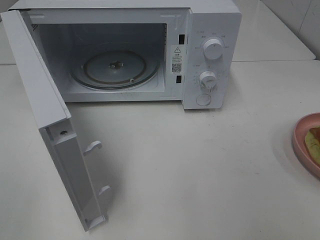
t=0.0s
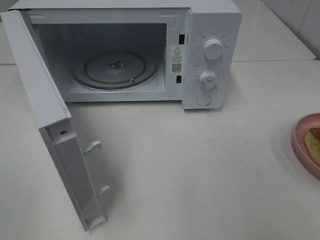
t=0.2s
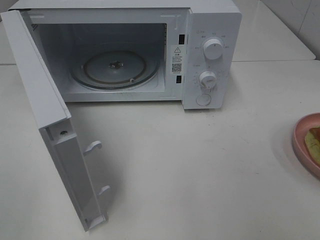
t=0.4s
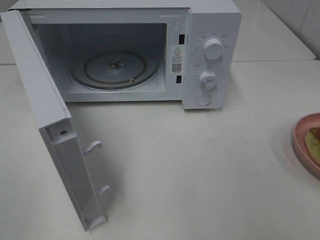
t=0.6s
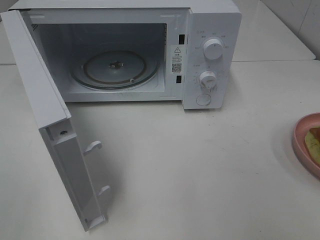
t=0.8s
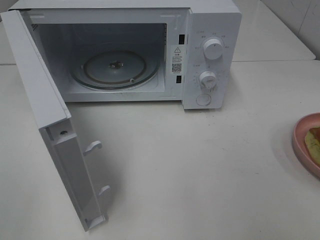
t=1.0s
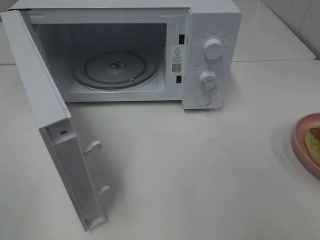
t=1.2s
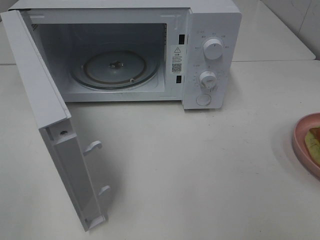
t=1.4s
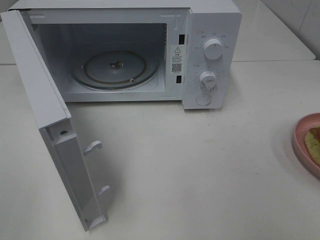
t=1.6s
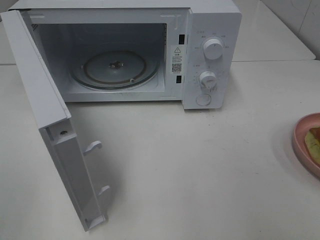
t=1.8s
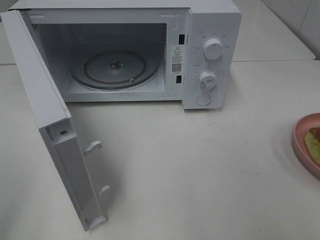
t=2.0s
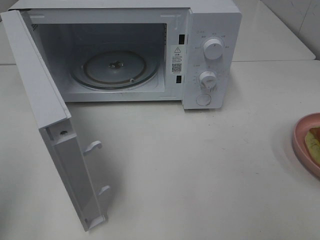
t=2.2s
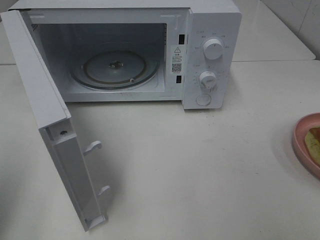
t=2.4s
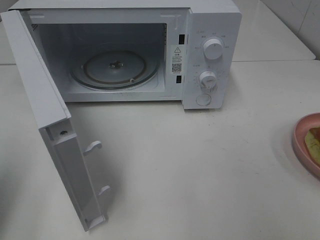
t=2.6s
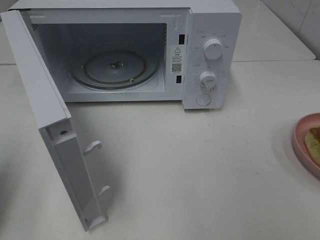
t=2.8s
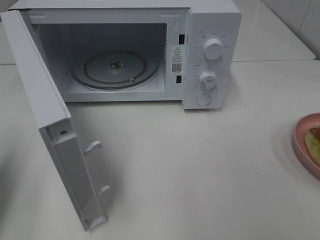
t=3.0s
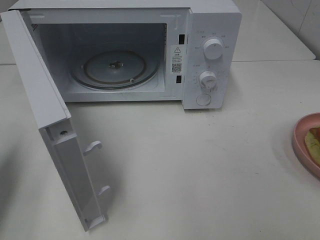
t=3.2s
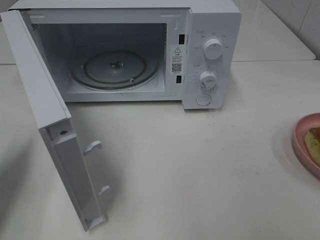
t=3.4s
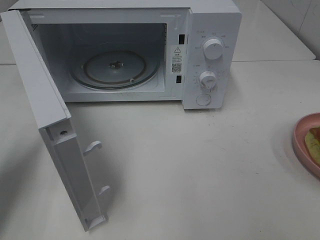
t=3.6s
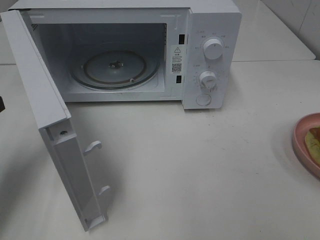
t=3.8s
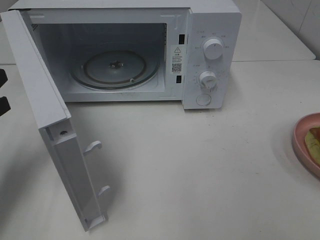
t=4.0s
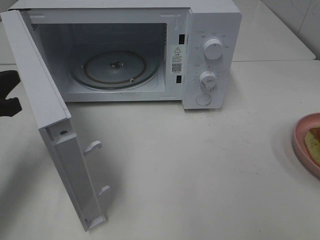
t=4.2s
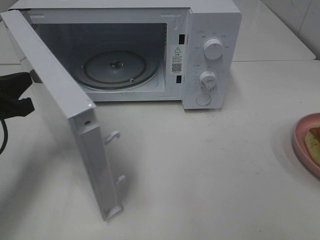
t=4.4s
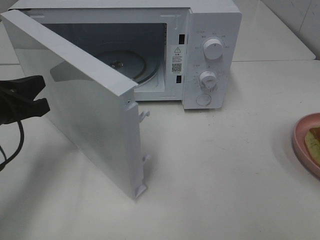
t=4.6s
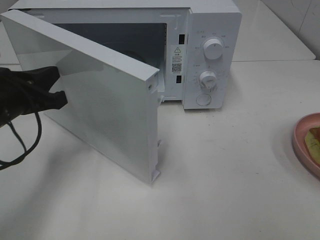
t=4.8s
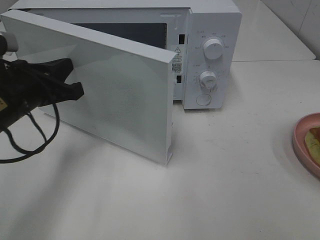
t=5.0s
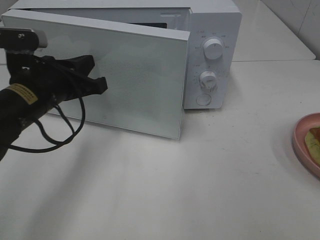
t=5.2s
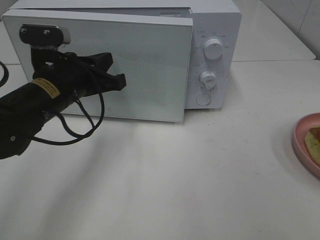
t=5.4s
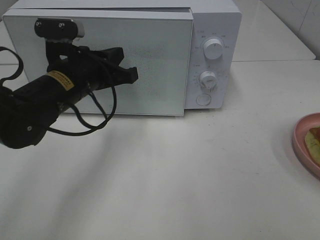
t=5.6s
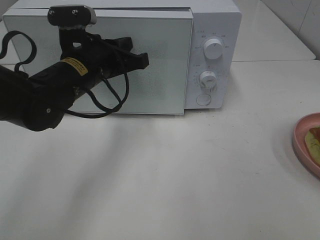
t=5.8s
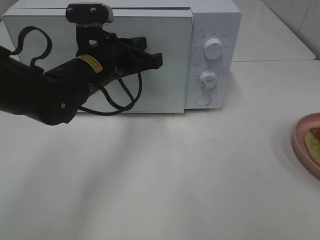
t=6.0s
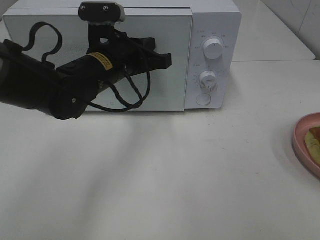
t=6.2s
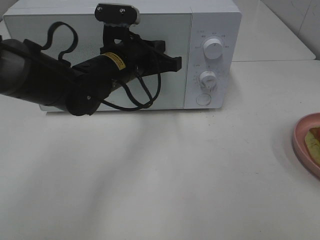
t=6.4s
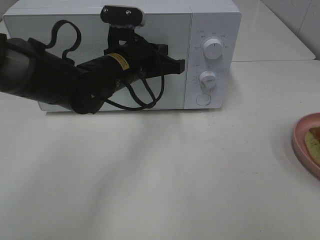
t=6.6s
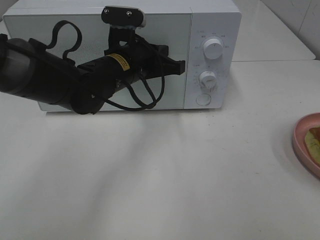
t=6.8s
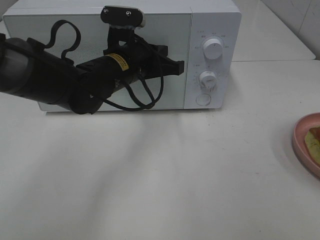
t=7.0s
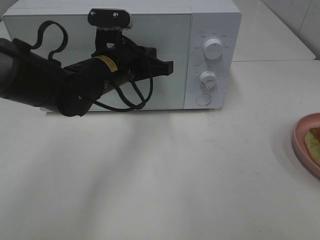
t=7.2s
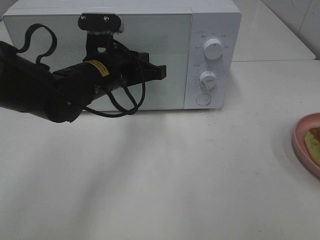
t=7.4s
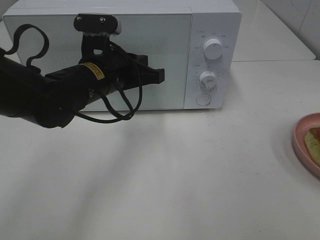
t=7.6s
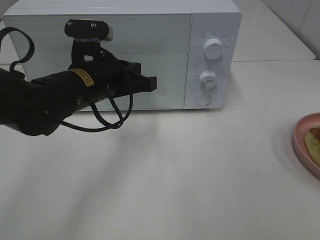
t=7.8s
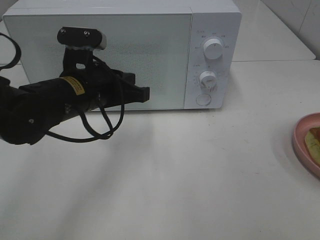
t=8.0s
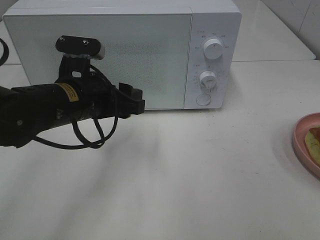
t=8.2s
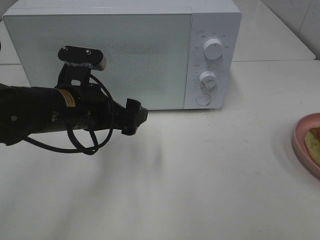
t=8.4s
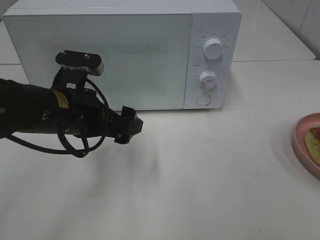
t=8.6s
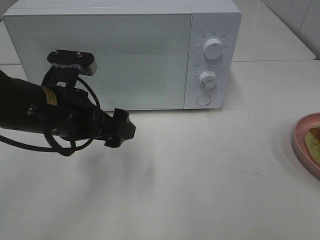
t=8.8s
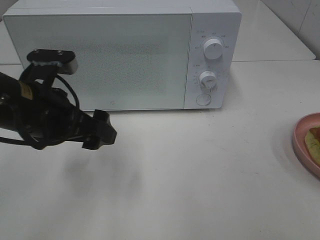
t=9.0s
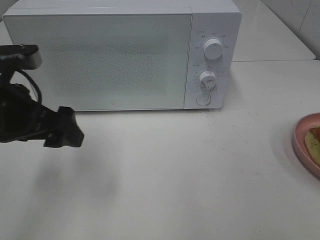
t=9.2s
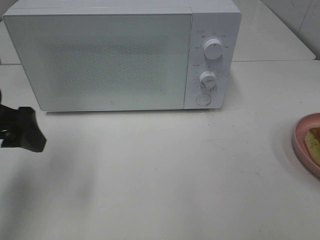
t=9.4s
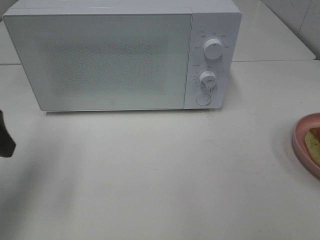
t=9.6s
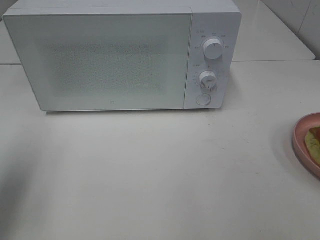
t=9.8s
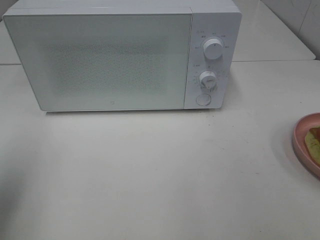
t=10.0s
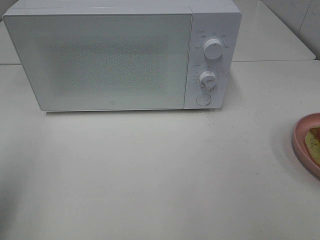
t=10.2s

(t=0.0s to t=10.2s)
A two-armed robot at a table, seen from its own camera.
Task of the whole recording: Heat Sandwich.
Step, t=0.0s - t=7.2s: Left hand: close the microwave door.
t=0.0s - t=1.4s: The two grippers keep their place.
t=1.4s - t=3.0s: The left gripper moves forward, about 20 cm, and closes its fingers.
t=3.0s - t=4.4s: The left gripper heads forward, to the right and downward, covering about 10 cm.
t=4.4s - t=5.8s: The left gripper is displaced to the right and forward by about 20 cm.
t=5.8s - t=7.2s: There are only small adjustments of the grippers.
t=7.2s - t=8.8s: The left gripper shifts about 10 cm backward and to the left, and opens.
t=8.8s - t=10.2s: The left gripper heads to the left, backward and upward, covering some 25 cm.

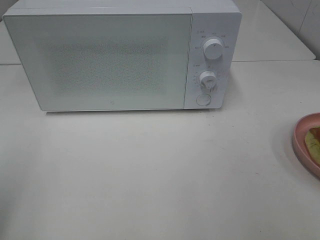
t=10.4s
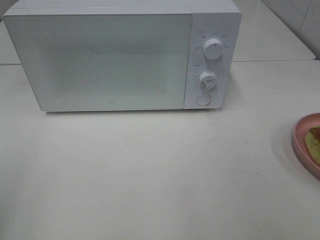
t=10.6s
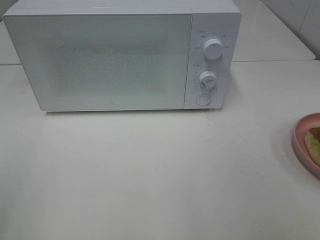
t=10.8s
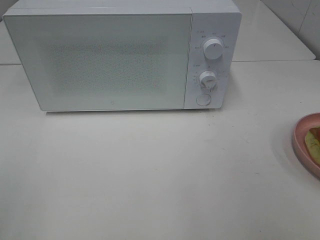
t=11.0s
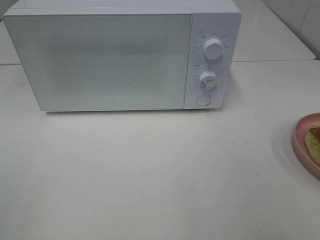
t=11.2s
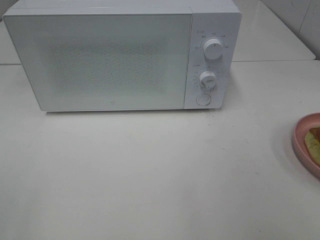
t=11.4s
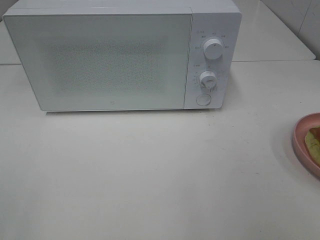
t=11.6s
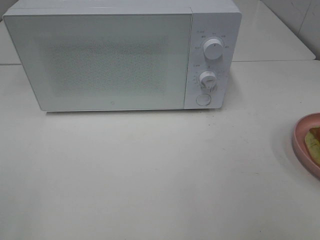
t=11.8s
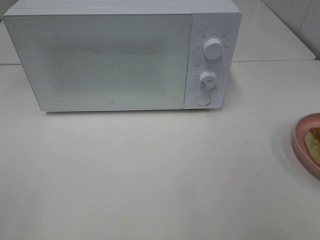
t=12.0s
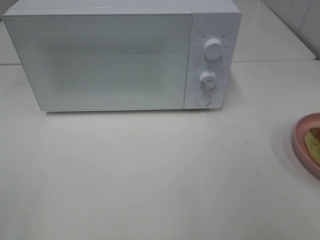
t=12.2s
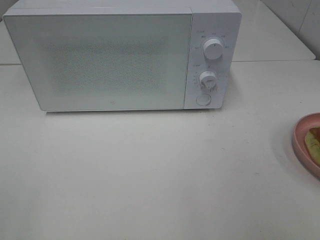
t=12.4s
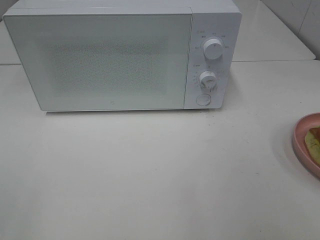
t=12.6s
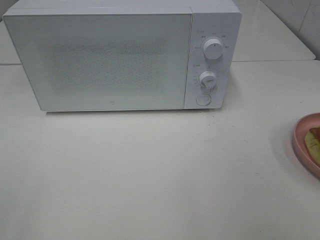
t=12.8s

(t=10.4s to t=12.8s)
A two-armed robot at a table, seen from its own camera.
Task of the whole recording: Heat Sandwich.
t=11.6s - t=12.8s: Both grippers stay about where they are.

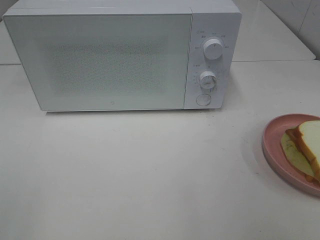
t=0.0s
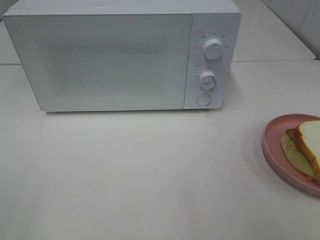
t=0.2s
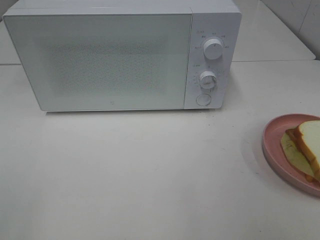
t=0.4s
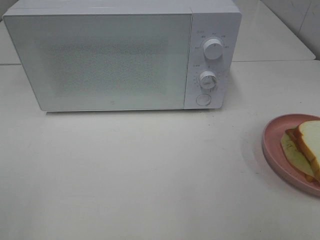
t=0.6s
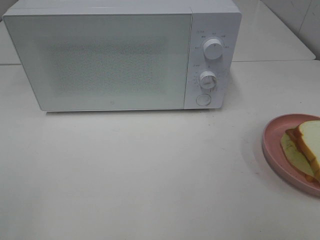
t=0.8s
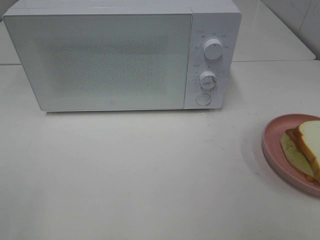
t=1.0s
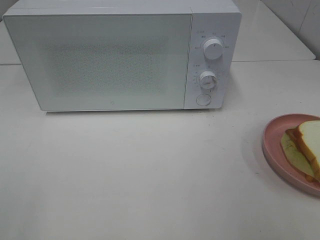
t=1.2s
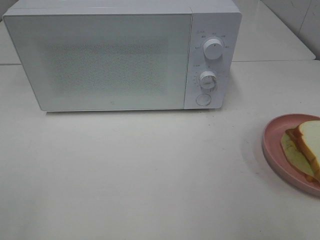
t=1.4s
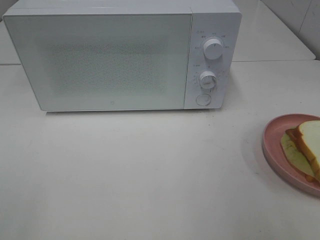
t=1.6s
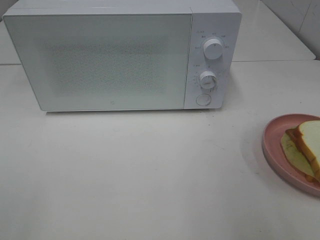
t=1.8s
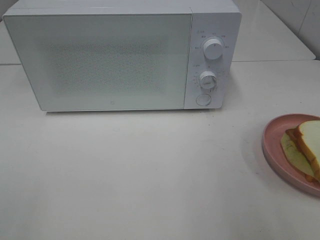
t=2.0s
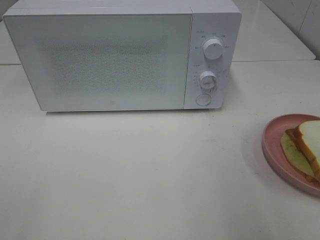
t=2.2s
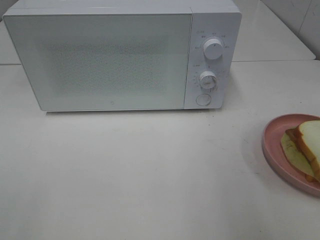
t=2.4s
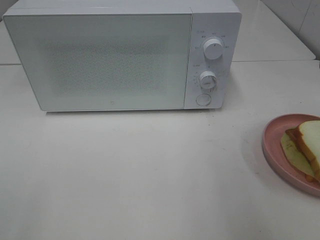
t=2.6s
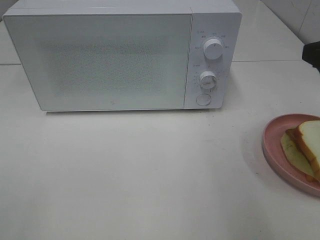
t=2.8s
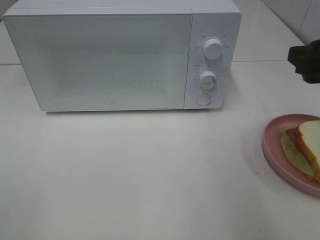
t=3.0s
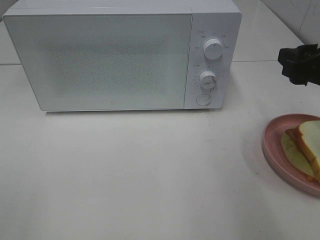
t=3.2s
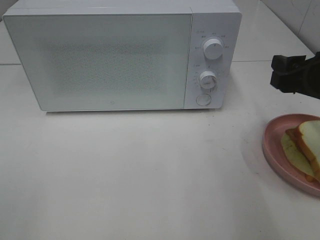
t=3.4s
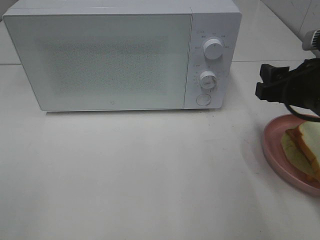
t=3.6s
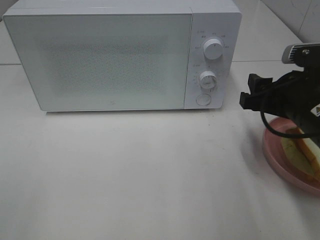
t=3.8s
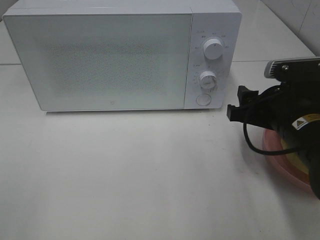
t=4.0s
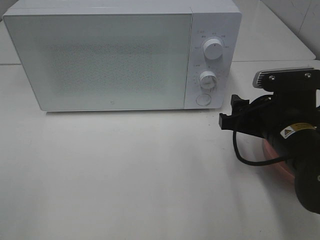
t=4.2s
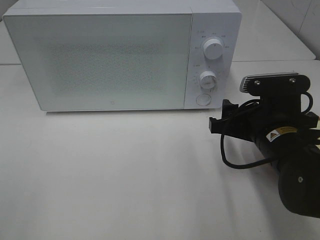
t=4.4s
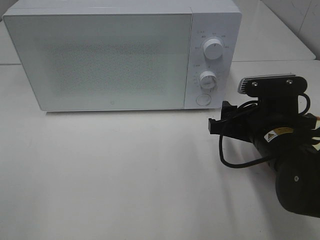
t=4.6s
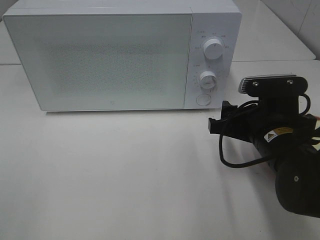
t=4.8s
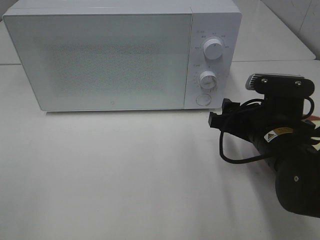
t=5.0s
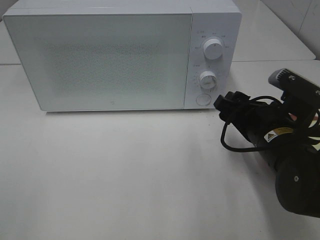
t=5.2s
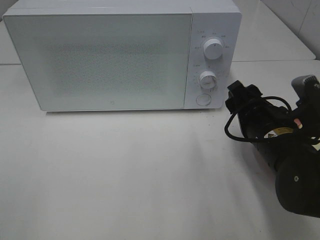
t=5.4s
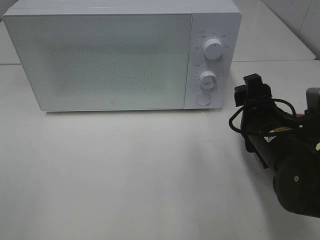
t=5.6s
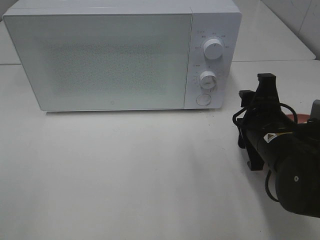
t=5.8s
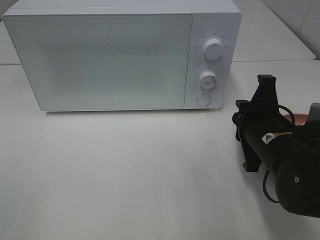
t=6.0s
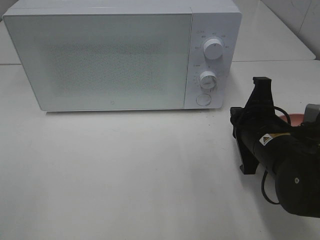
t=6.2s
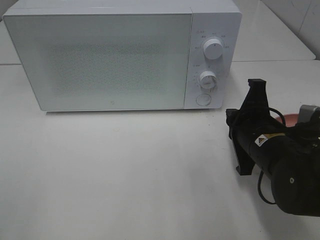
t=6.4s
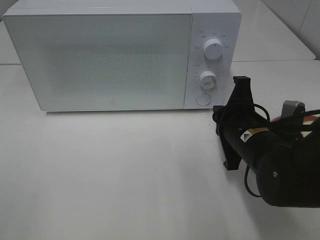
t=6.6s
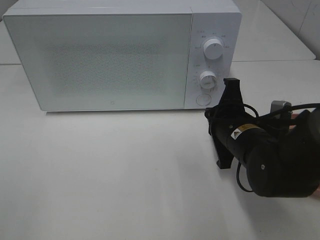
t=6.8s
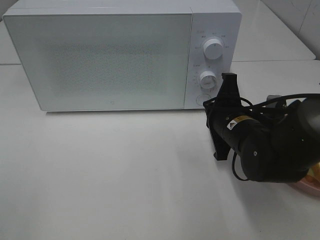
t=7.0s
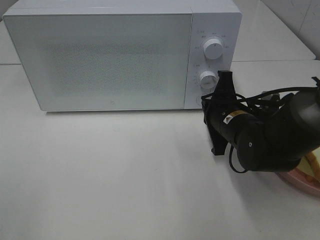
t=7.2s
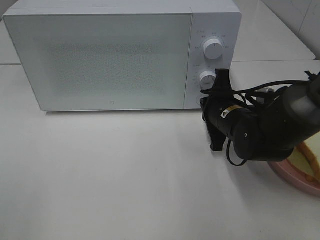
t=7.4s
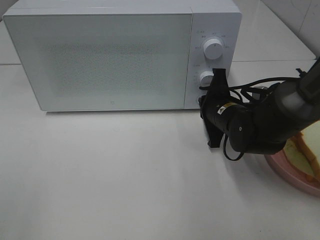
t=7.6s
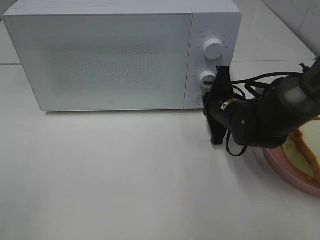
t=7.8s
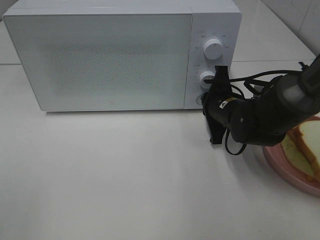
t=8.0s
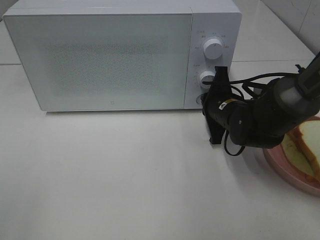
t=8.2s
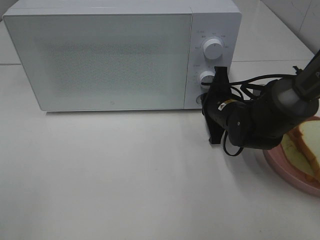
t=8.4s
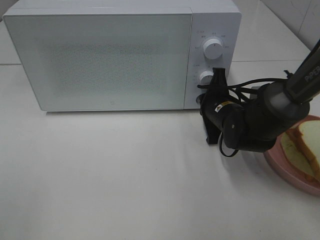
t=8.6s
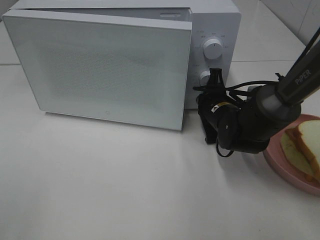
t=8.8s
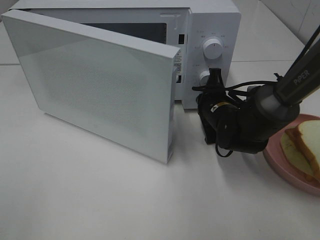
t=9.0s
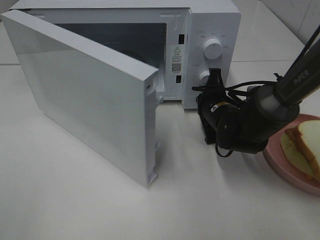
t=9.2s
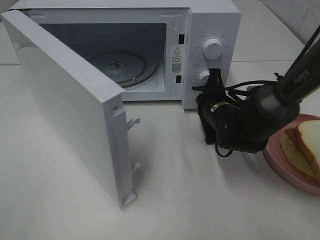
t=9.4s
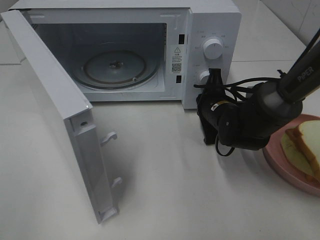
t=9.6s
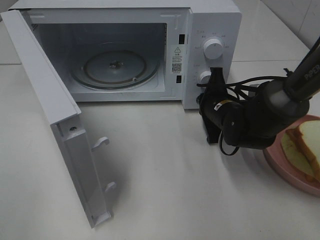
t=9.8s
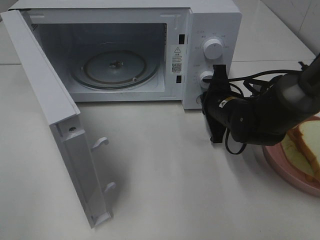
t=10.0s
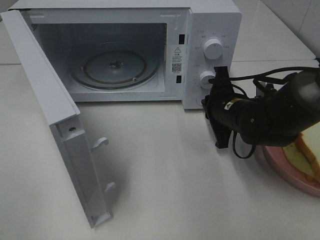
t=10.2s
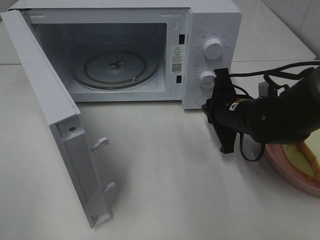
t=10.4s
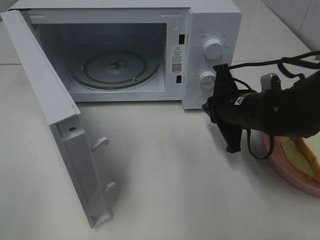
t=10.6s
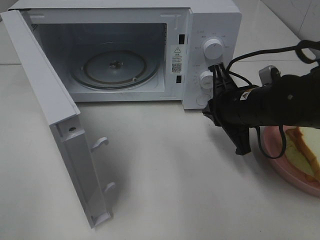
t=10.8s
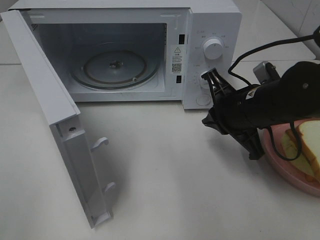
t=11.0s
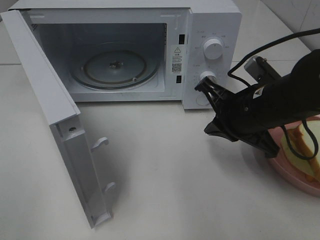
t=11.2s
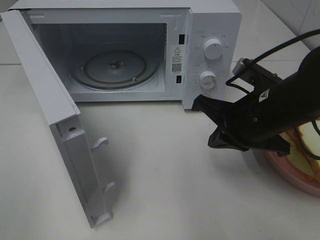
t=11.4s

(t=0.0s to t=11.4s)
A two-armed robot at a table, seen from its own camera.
Task of the whole recording: Heat Sandwich.
Step, t=0.0s - t=10.4s: Right hand: press the switch.
t=2.8s - t=4.2s: The right gripper travels downward and to the left by about 15 cm.
t=5.6s - t=7.2s: The right gripper is displaced forward by approximately 5 cm, and closes its fingers.
t=7.2s - t=8.6s: The right gripper goes approximately 5 cm forward.
t=10.0s - t=11.4s: The right gripper is displaced backward and upward by some 15 cm.
